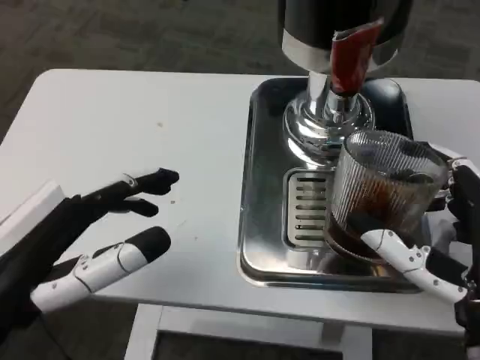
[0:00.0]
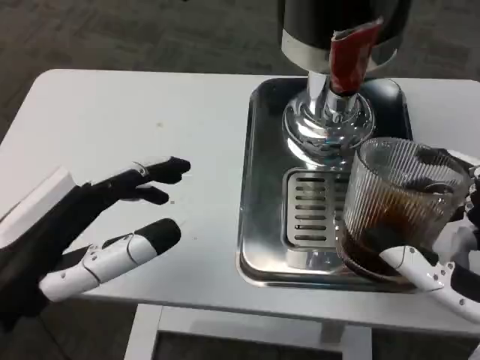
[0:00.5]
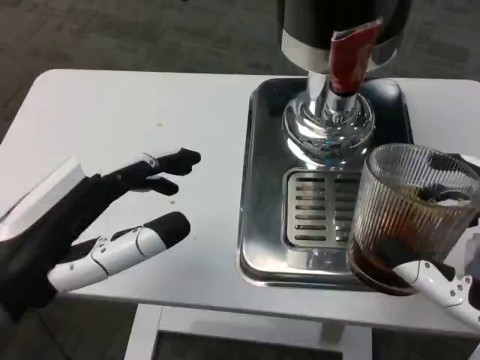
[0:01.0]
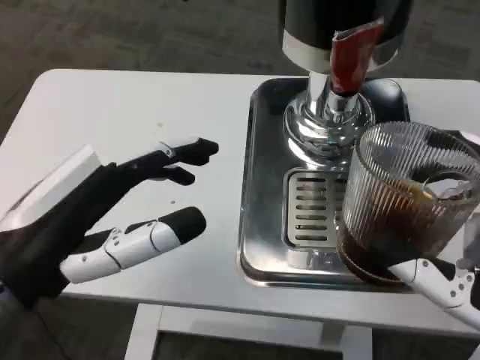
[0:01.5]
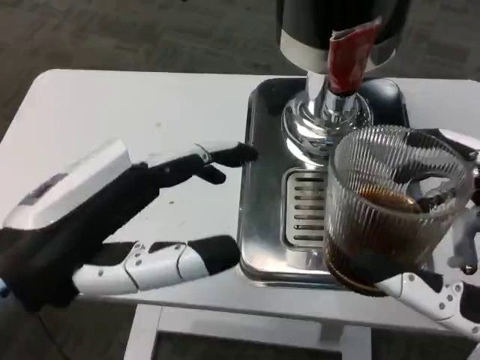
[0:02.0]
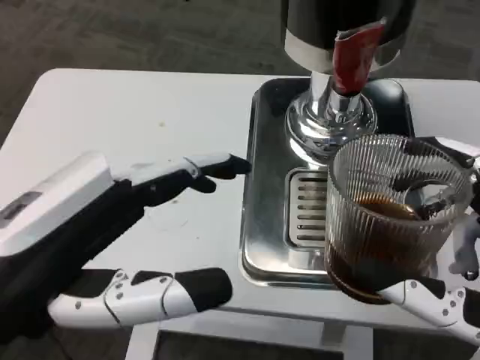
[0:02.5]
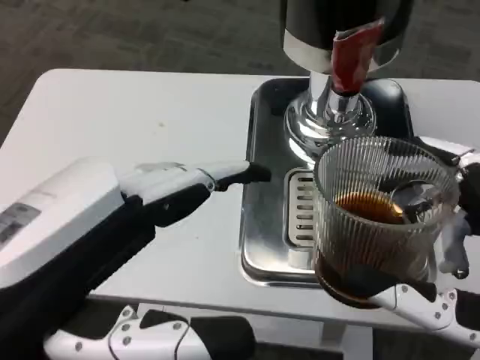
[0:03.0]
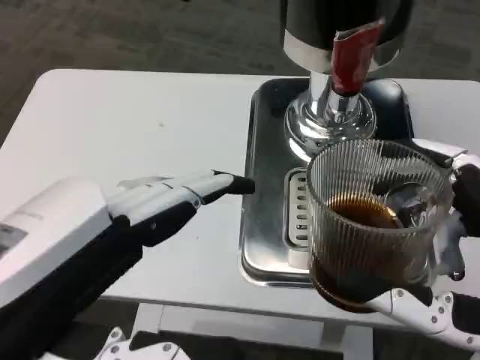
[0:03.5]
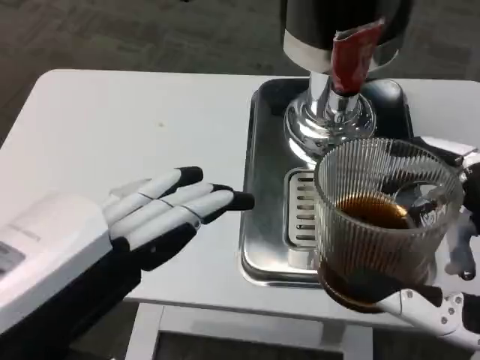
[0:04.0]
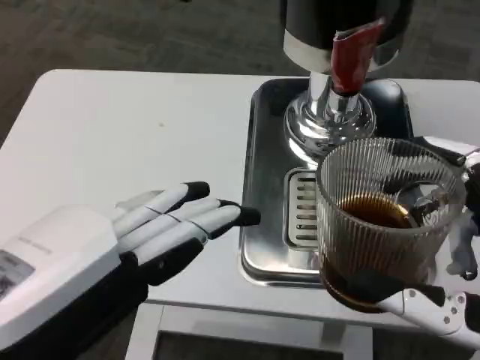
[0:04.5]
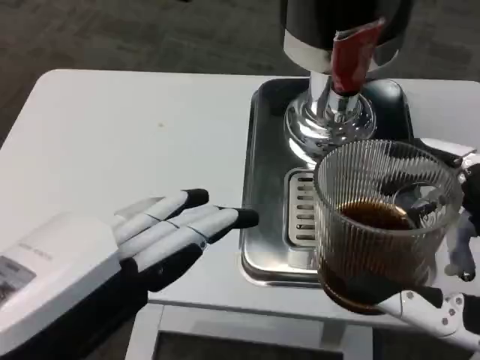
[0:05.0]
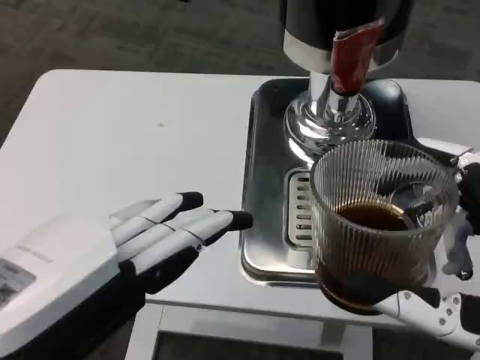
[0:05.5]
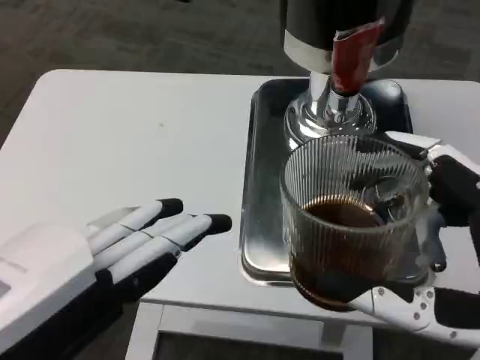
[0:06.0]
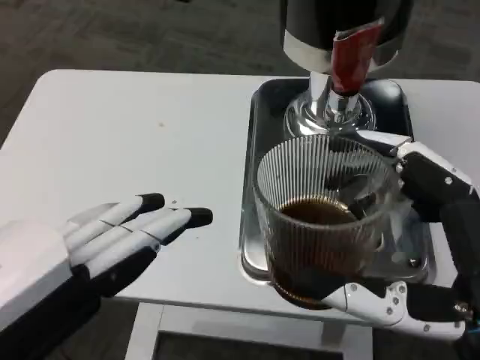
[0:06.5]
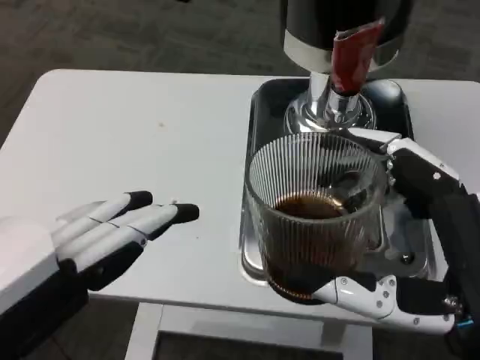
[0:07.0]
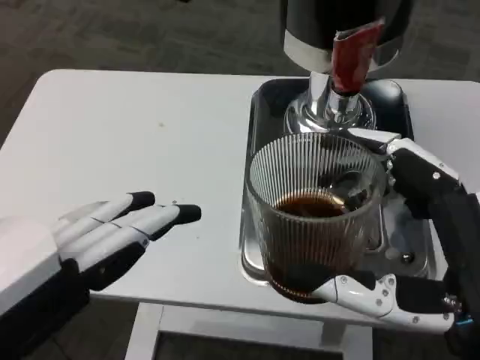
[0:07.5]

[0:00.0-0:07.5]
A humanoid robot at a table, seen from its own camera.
Task of the whole recording: Grasp the cup under the faucet to collect the drink, then remove the cup.
0:02.0 to 0:04.0: The left hand shifts about 10 cm backward.
0:04.0 to 0:05.5: Both hands stay put.

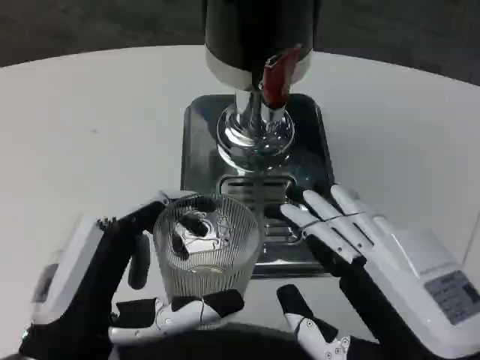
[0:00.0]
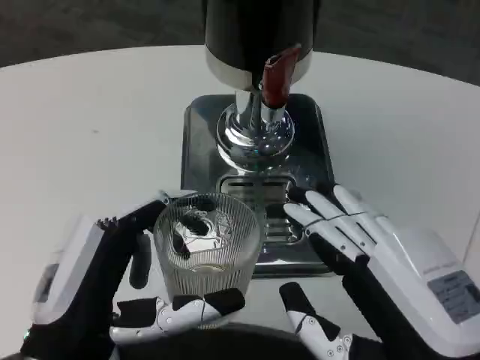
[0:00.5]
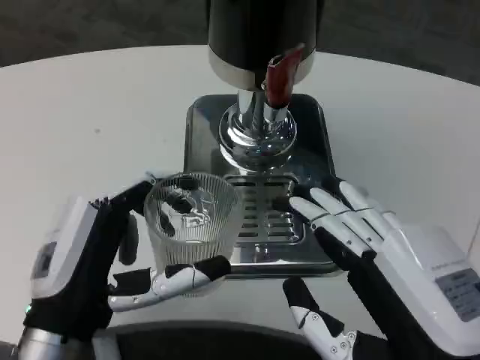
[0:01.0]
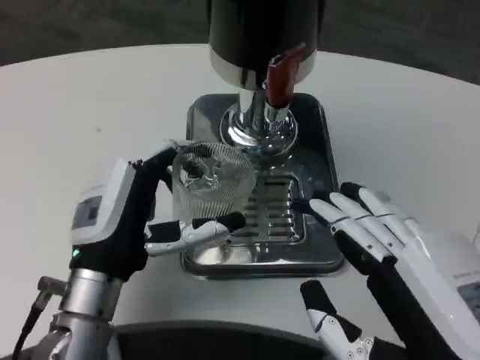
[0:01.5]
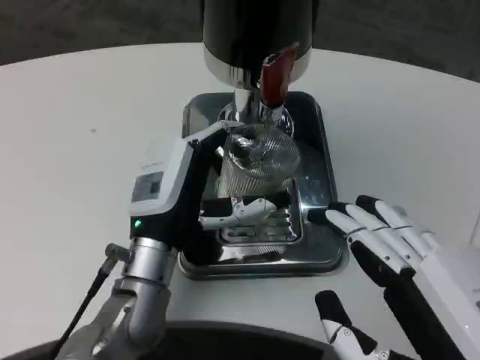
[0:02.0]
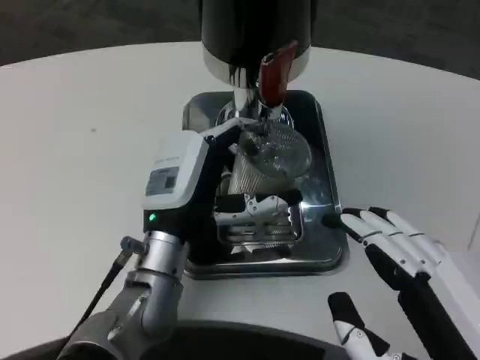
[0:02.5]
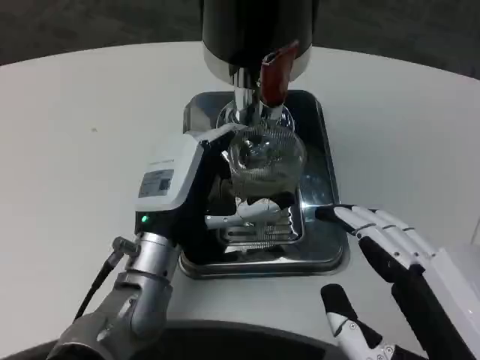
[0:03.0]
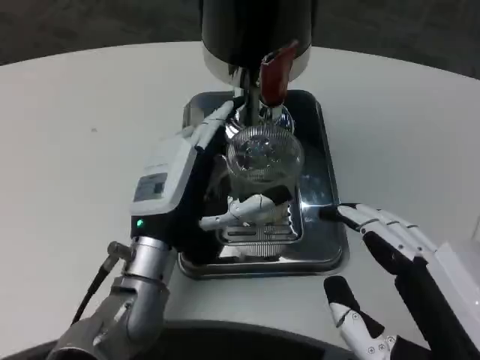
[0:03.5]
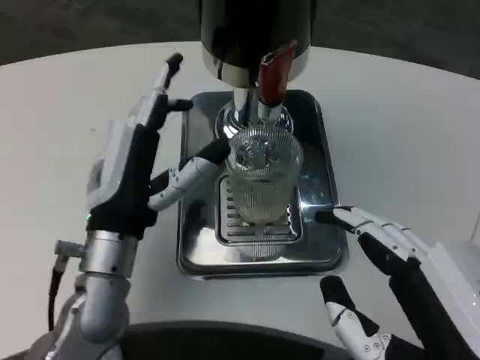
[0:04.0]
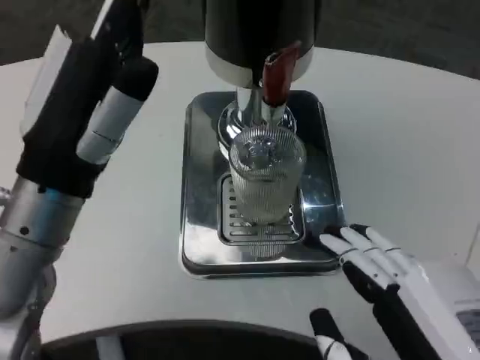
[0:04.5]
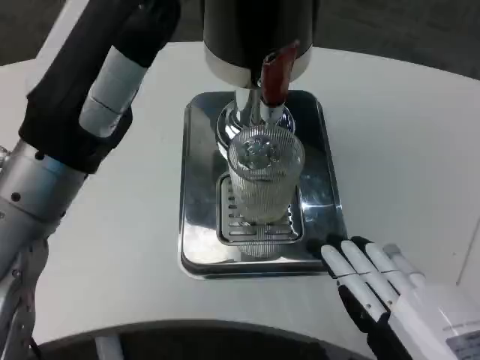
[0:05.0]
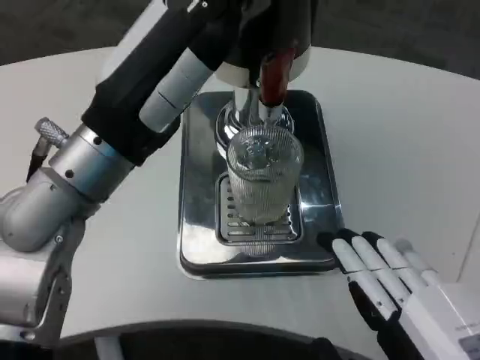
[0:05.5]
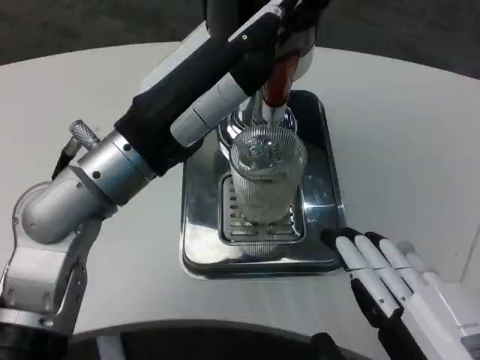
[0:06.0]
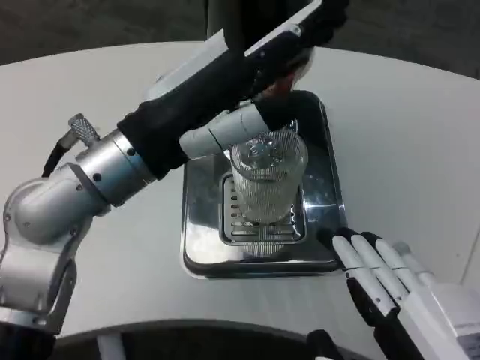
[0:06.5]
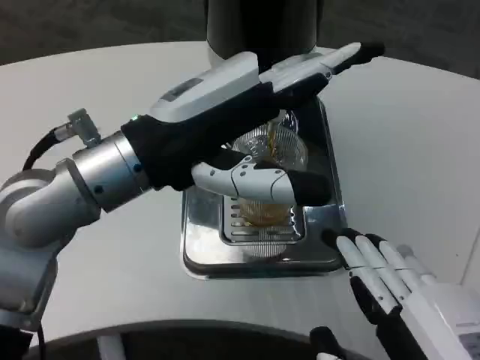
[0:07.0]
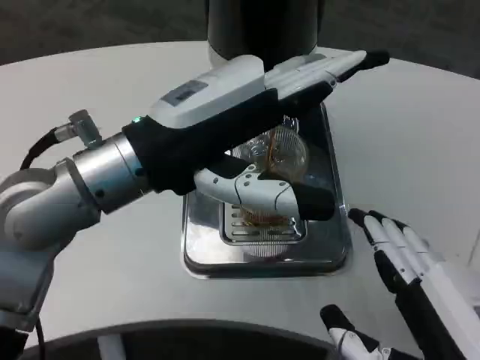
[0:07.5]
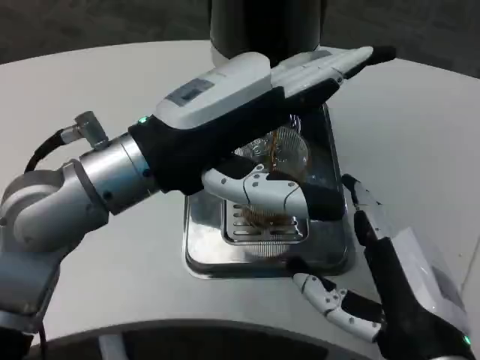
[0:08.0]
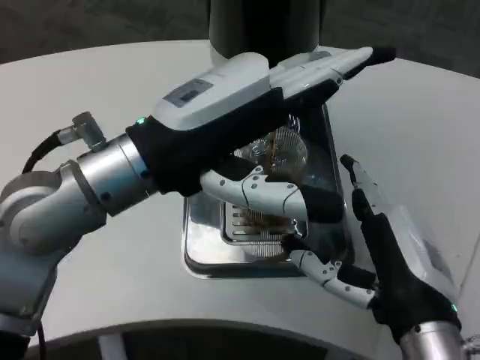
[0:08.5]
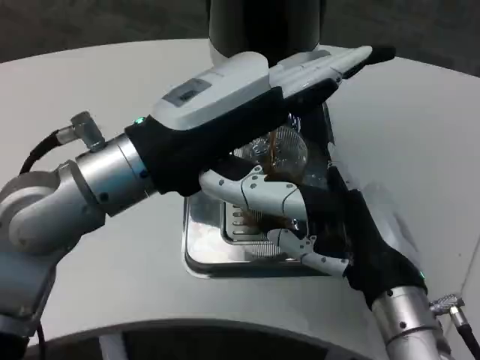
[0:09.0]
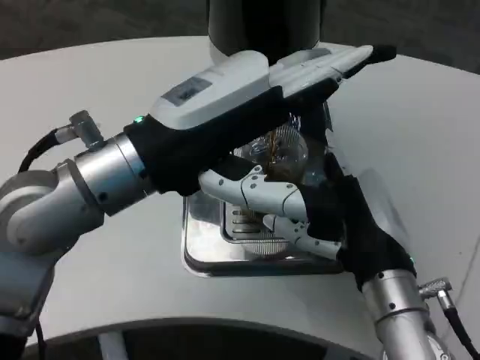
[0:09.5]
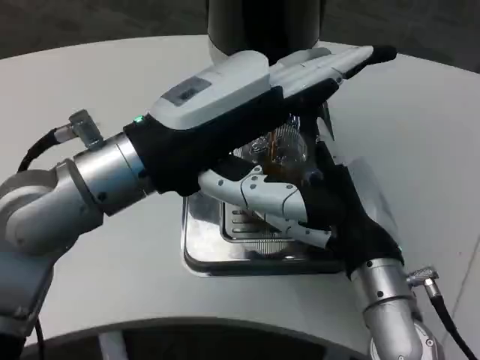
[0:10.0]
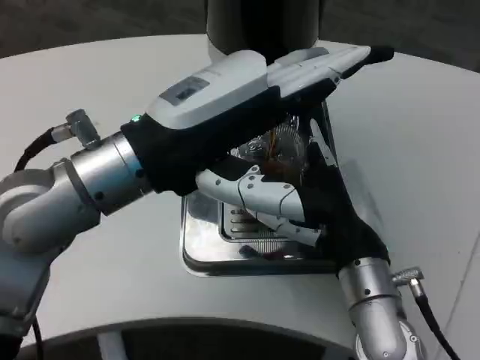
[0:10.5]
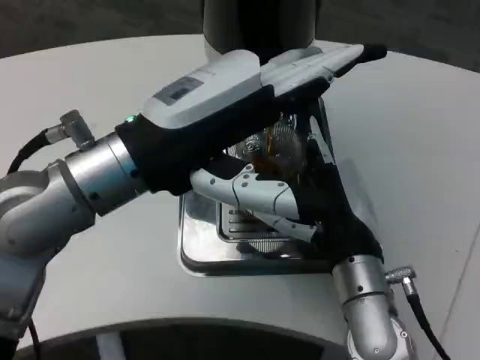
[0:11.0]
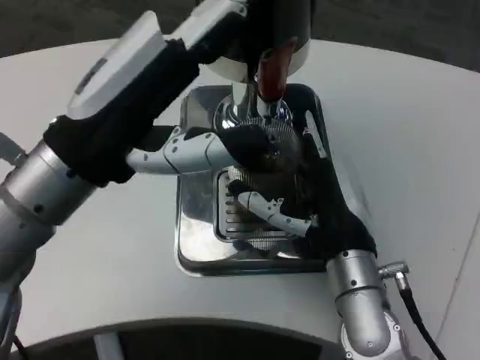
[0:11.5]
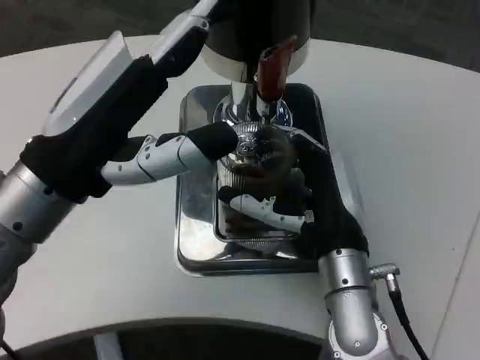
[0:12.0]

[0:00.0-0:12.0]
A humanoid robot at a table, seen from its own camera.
Task of the whole recording: Grasp the cup under the faucet to collect the drink, then remove the cup.
0:00.0 to 0:02.0: The left hand travels forward and to the right by roughly 15 cm.
0:04.0 to 0:06.0: The left hand travels upward by some 10 cm.
0:06.0 to 0:08.0: The right hand moves forward, some 10 cm.
0:08.0 to 0:10.0: The right hand moves forward, about 10 cm.
0:10.0 to 0:12.0: The left hand shifts by about 5 cm.

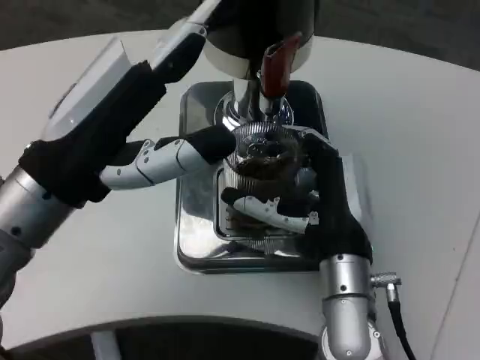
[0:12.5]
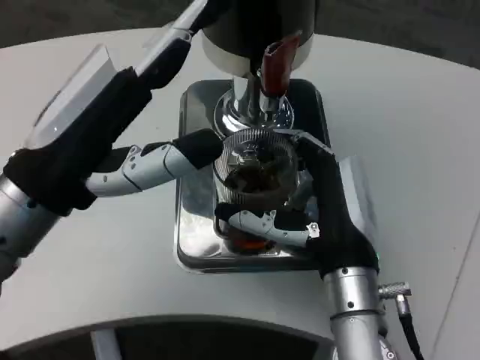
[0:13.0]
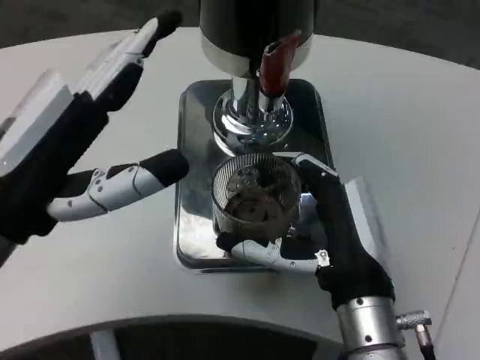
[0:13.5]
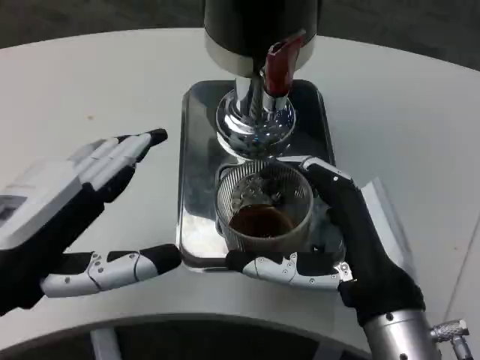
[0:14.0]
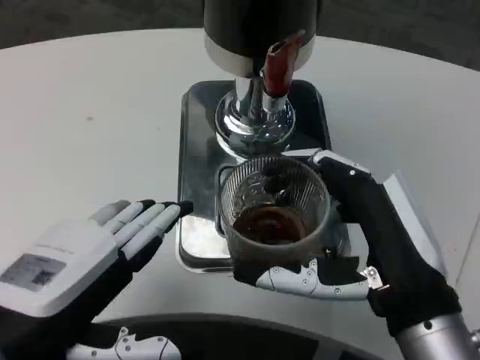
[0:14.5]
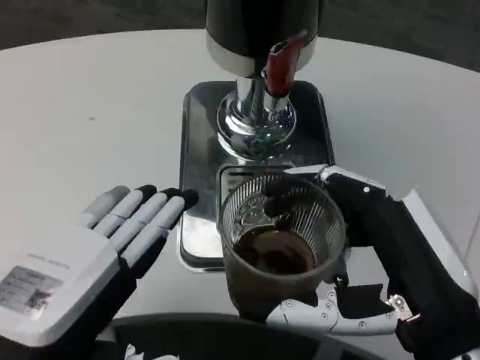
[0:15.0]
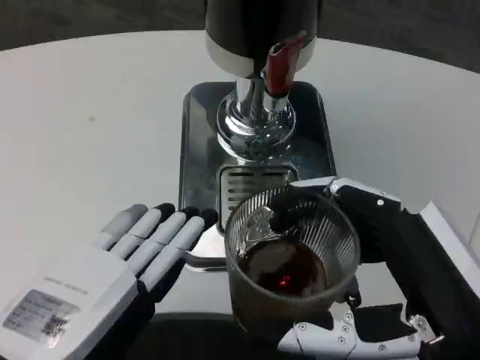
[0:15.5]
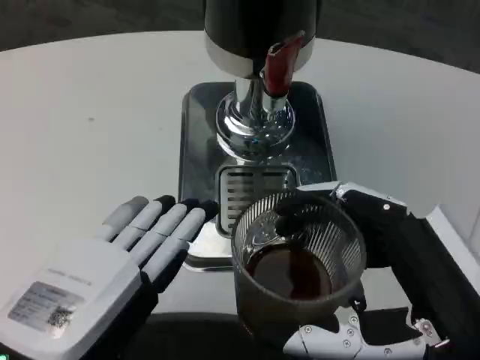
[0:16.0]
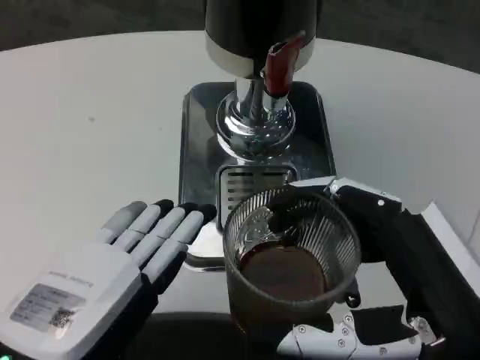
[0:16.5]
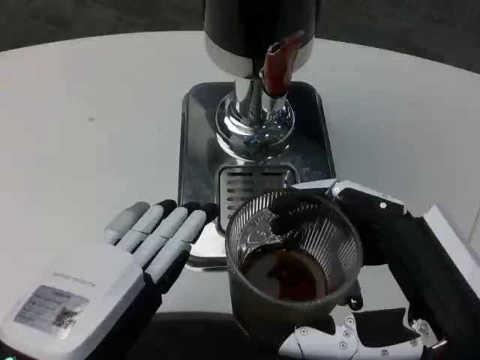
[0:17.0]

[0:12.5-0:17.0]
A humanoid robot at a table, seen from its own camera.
Task of the whole recording: Grasp the cup under the faucet to collect the drink, then remove the cup.
0:12.5 to 0:14.5: The right hand is displaced backward and to the right by about 10 cm. Meanwhile the left hand goes about 10 cm backward and downward.
0:14.5 to 0:17.0: The right hand shifts about 5 cm backward.

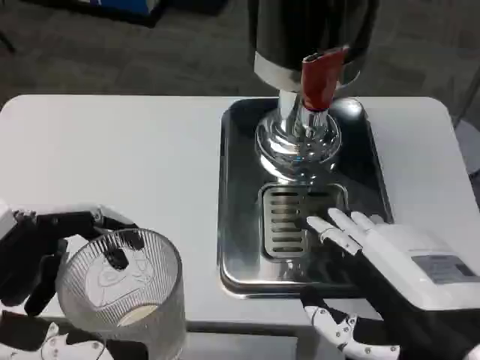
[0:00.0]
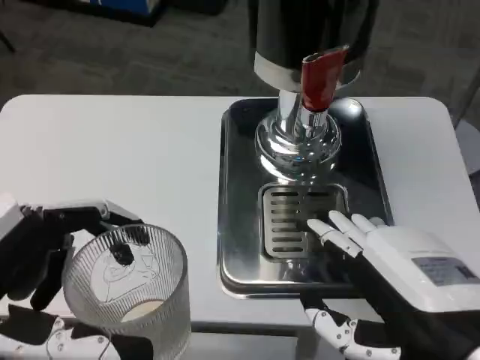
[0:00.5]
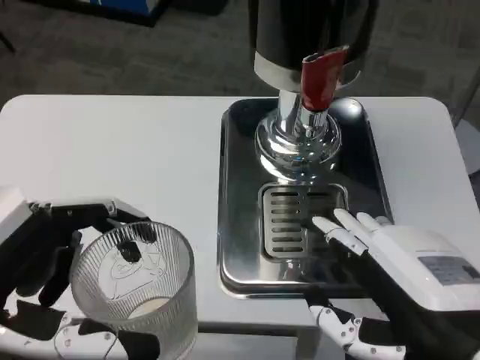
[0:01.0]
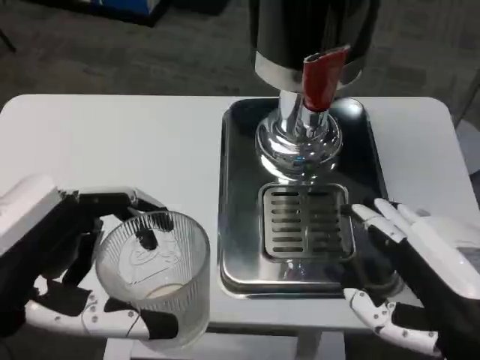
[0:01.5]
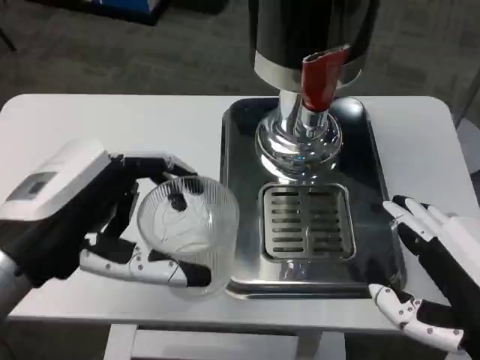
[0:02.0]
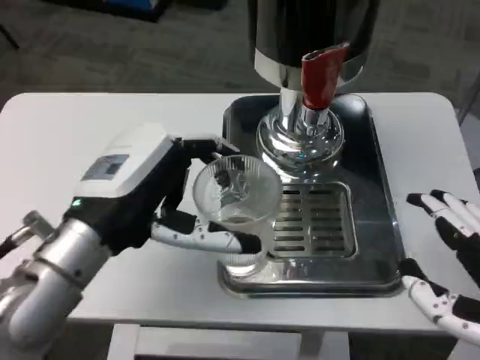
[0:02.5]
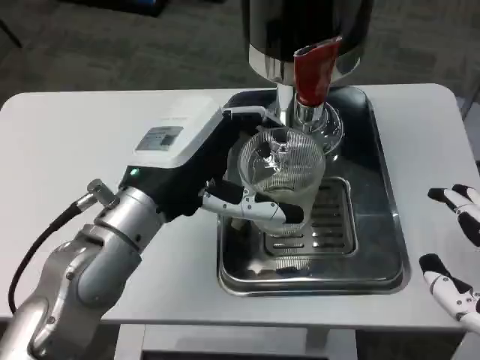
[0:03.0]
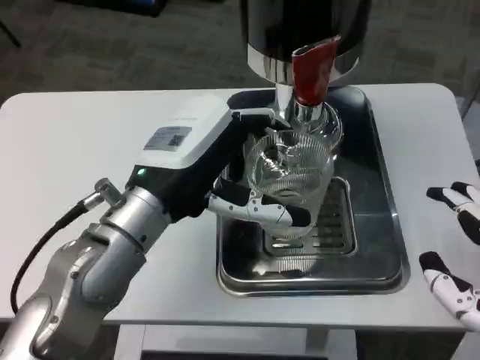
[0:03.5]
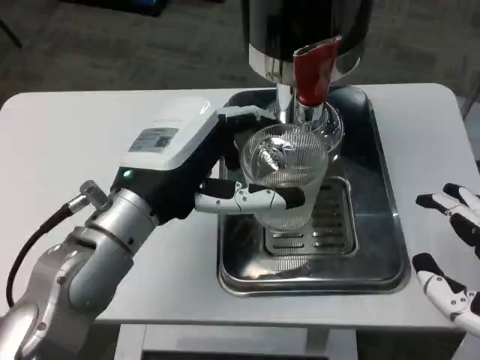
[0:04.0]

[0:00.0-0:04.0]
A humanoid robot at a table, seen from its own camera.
Task of the whole recording: Grasp the cup under the faucet to collect the drink, then remove the cup.
0:00.0 to 0:02.0: The left hand shifts about 10 cm forward.
0:02.0 to 0:04.0: The left hand moves to the right and forward, some 10 cm.
